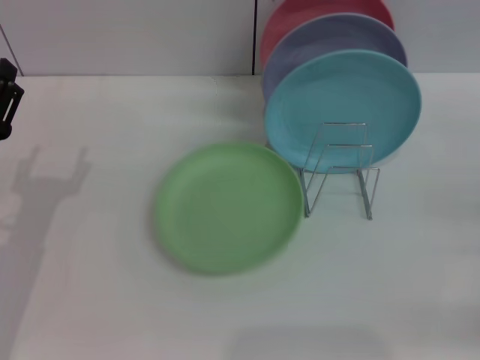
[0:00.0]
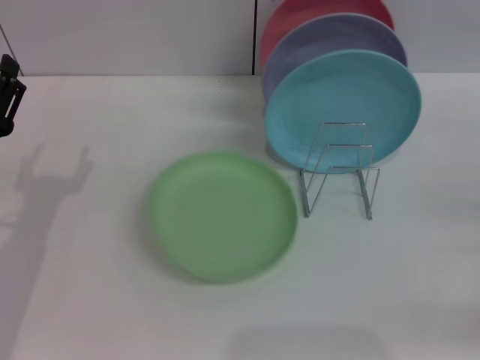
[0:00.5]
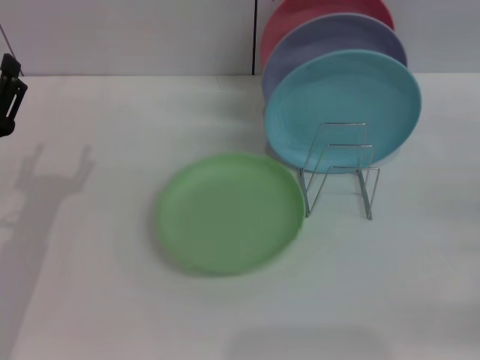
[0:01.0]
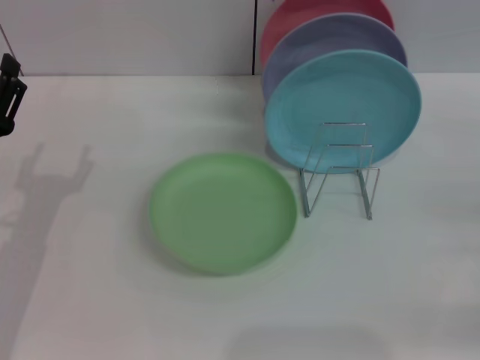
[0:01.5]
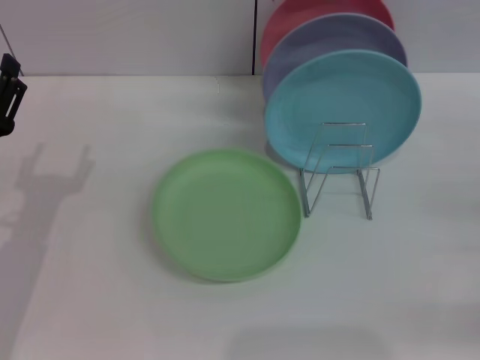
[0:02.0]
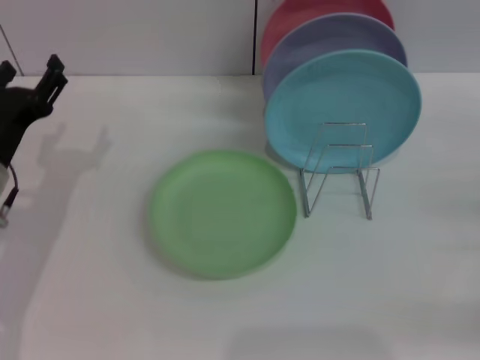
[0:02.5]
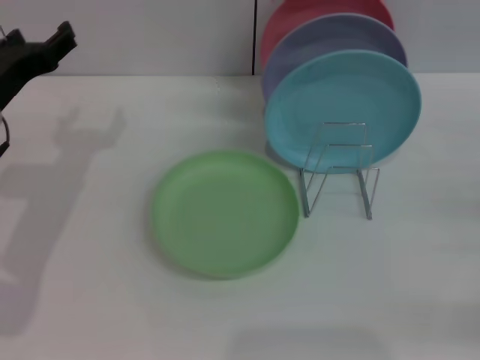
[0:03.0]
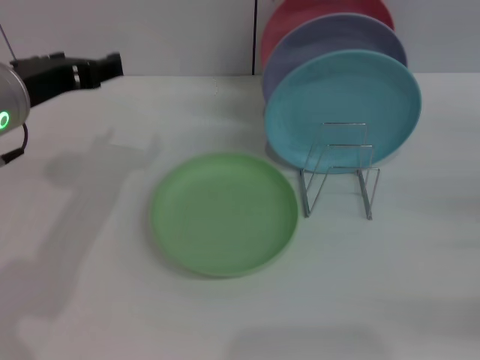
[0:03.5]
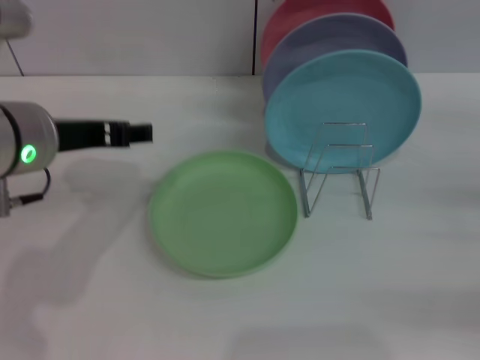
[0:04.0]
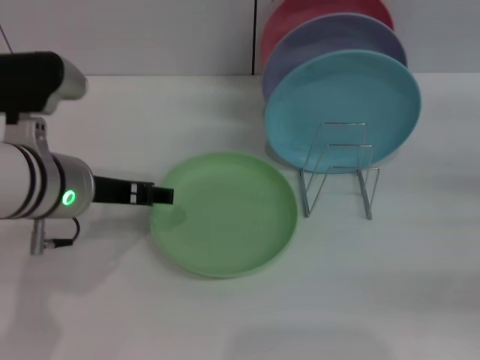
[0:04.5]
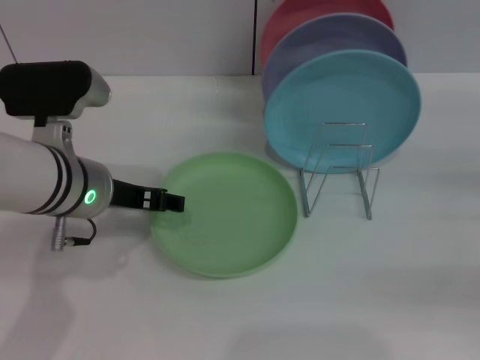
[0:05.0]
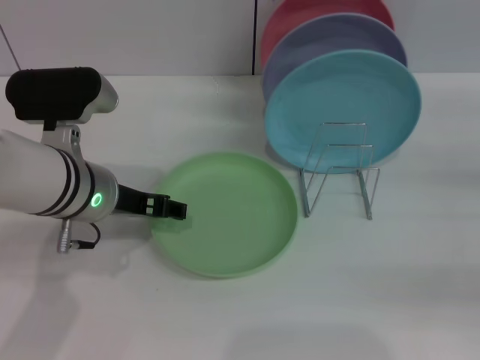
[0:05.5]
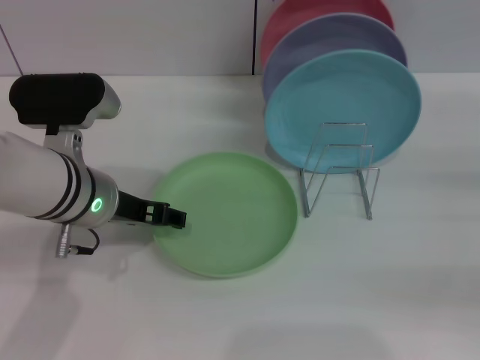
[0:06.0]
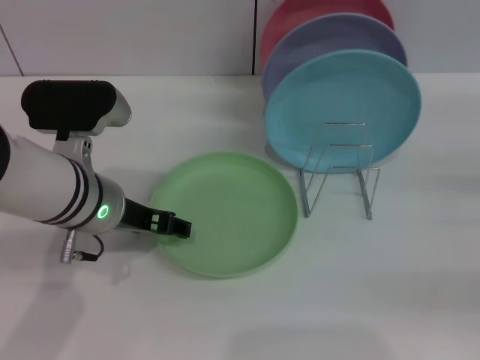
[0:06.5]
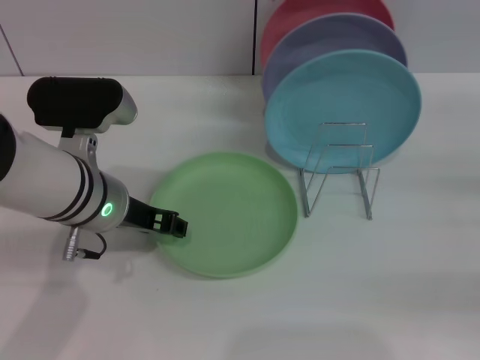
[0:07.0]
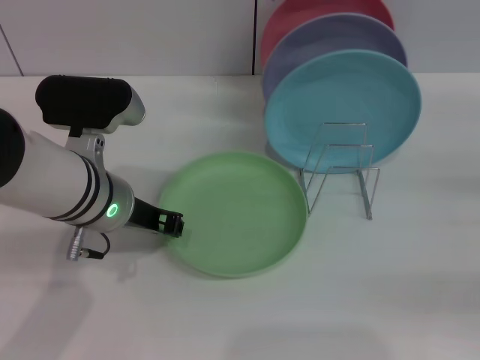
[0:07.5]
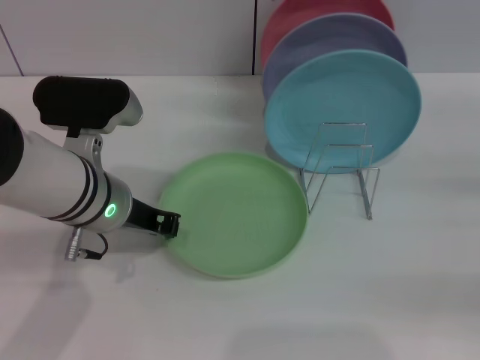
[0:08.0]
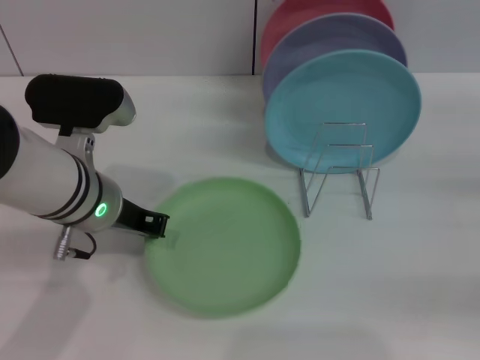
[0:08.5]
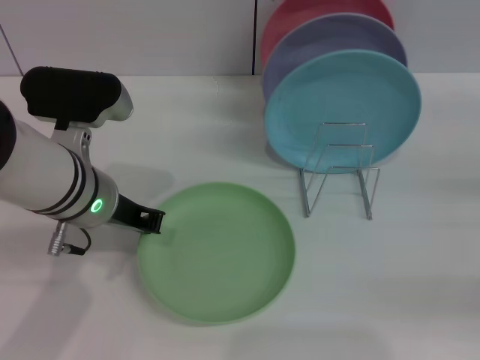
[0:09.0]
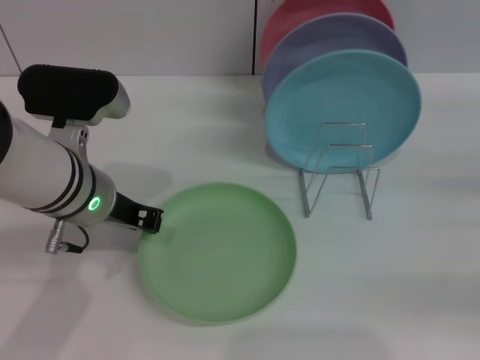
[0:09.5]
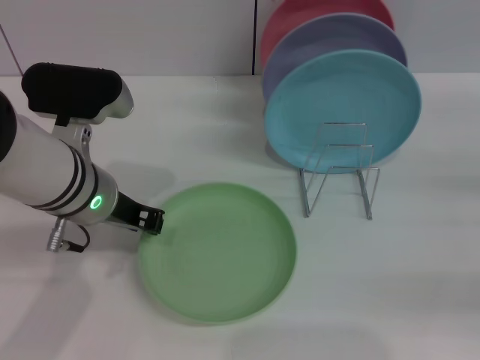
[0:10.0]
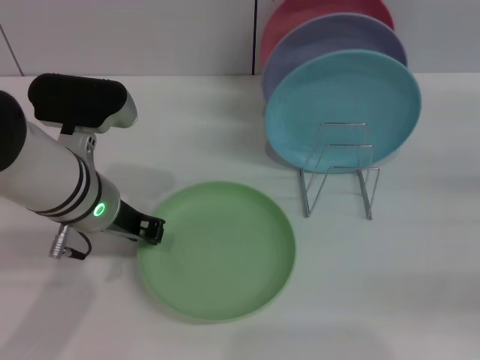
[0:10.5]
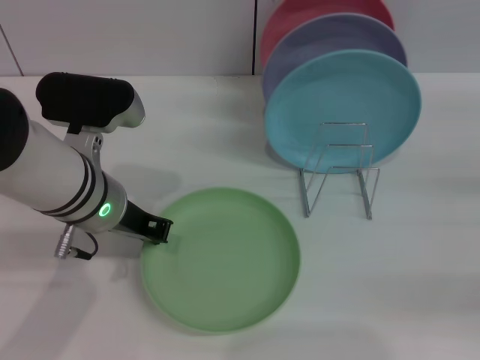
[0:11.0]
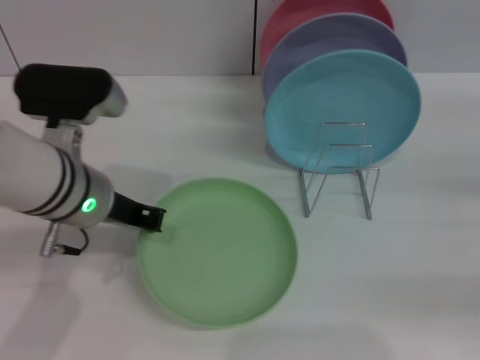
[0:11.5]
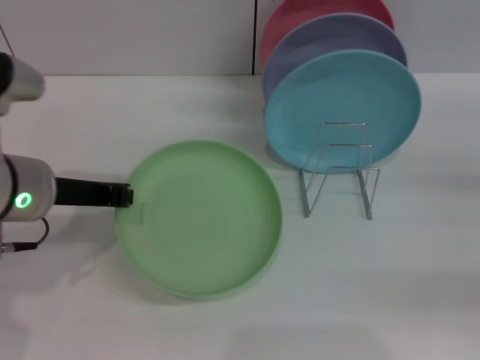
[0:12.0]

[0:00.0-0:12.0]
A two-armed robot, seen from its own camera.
Task of the whole recording: Grip the plate with one hand, pass it to the other, then set it on the shelf.
Step, 0.0 to 11.0 s: Pick up the plate with the left gripper.
0.0 to 2.0 s: Both grippers stay about where they are.
2.0 to 4.0 s: The left gripper travels upward and to the right by approximately 15 cm.
4.0 to 6.0 s: The left gripper travels downward by about 5 cm.
6.0 to 8.0 s: The left gripper closes up.
8.0 to 10.0 s: There are only small adjustments of the grippers.
10.0 to 12.0 s: The left gripper heads to the left, covering approximately 5 cm.

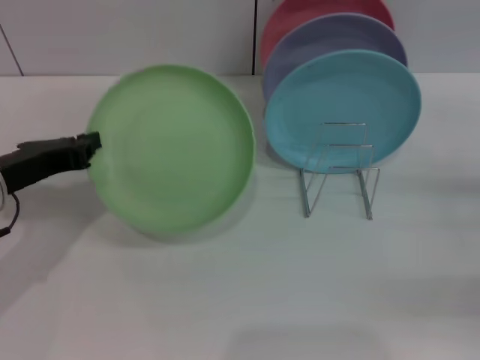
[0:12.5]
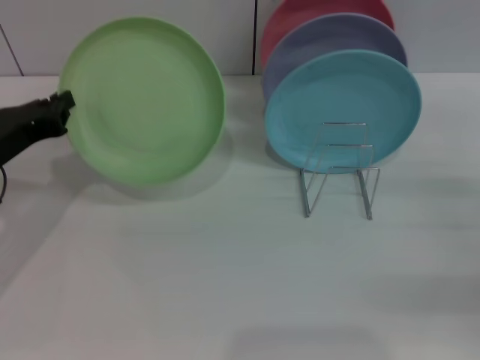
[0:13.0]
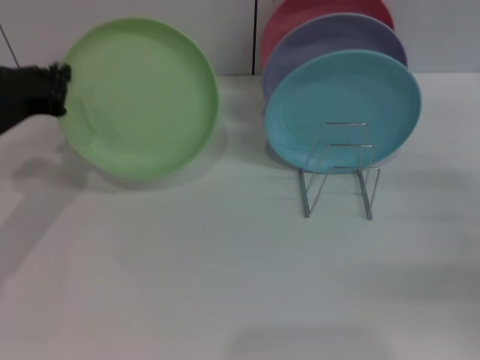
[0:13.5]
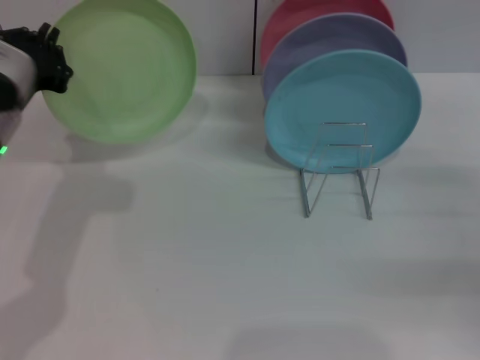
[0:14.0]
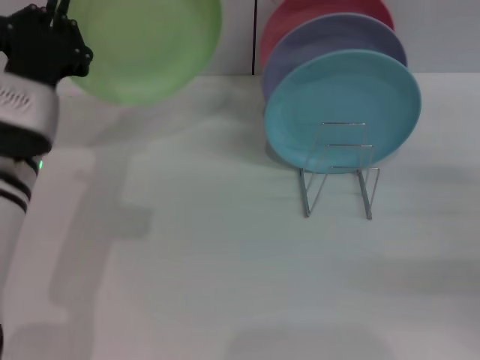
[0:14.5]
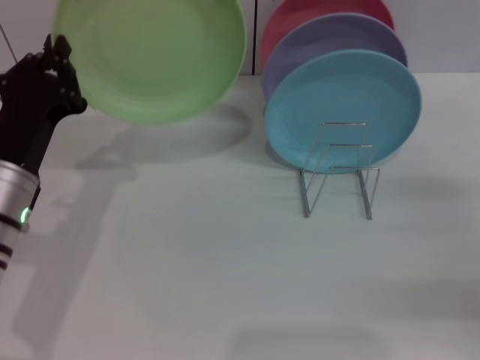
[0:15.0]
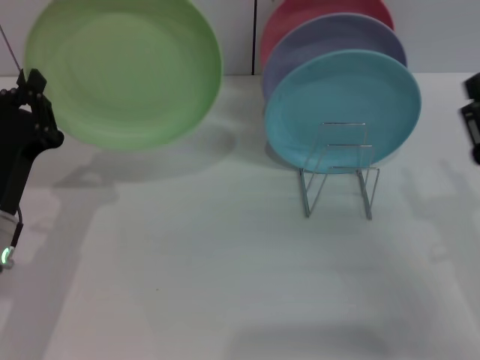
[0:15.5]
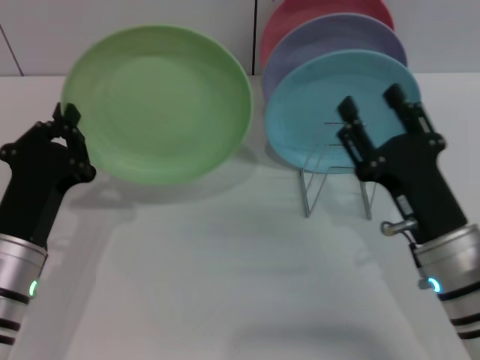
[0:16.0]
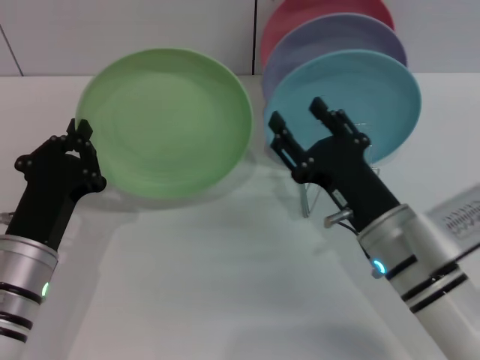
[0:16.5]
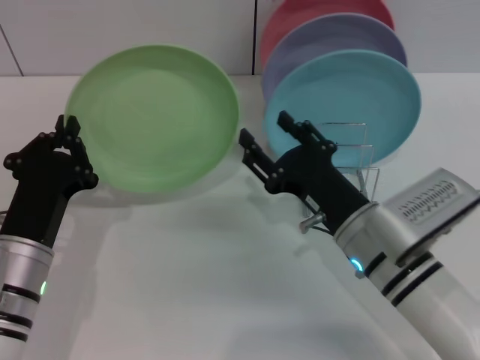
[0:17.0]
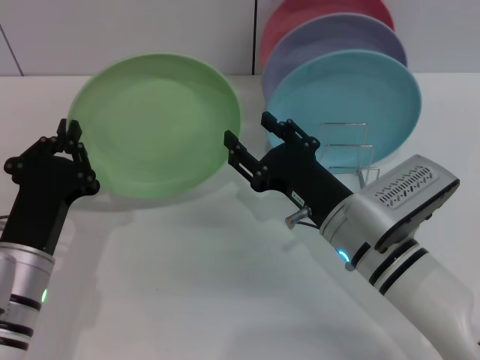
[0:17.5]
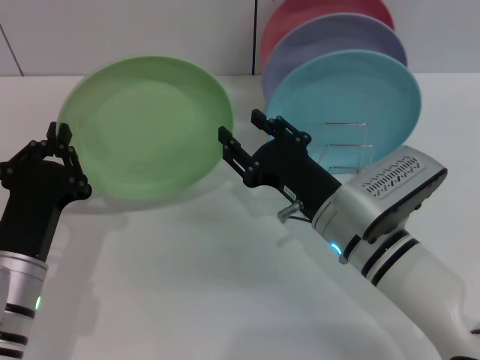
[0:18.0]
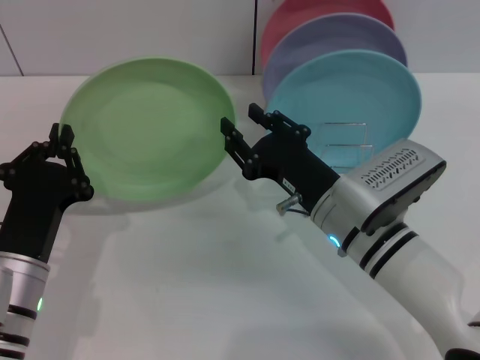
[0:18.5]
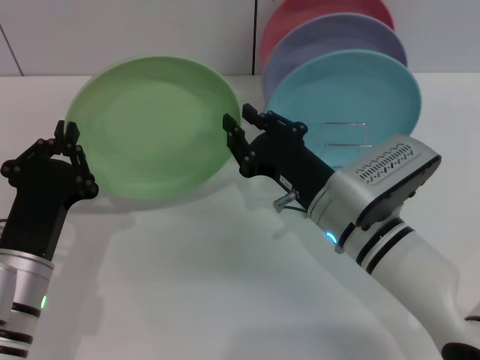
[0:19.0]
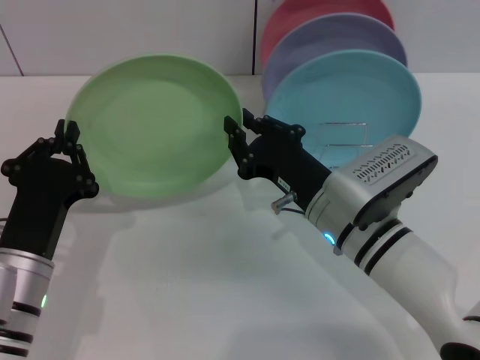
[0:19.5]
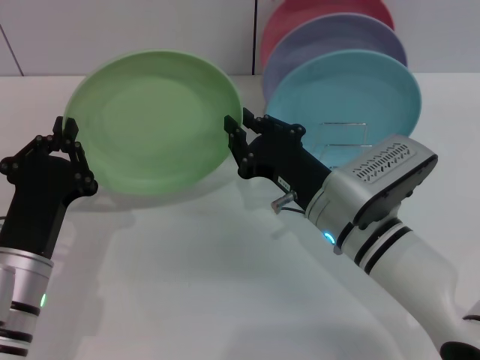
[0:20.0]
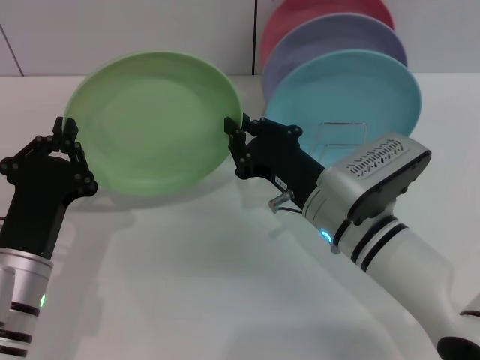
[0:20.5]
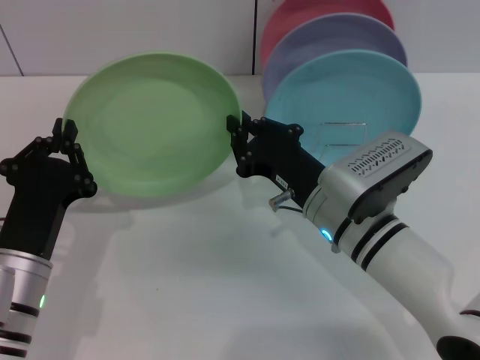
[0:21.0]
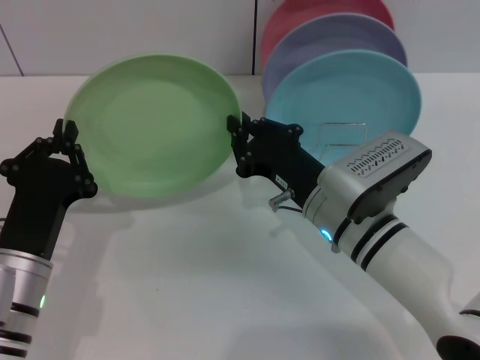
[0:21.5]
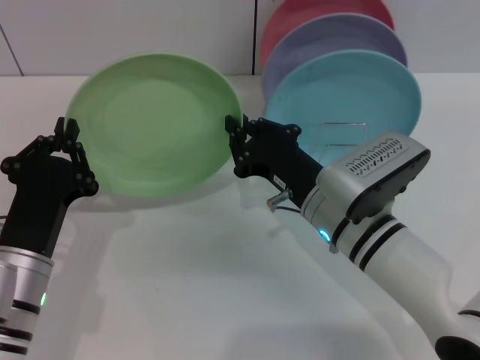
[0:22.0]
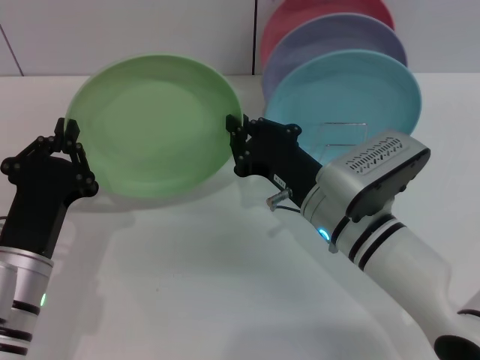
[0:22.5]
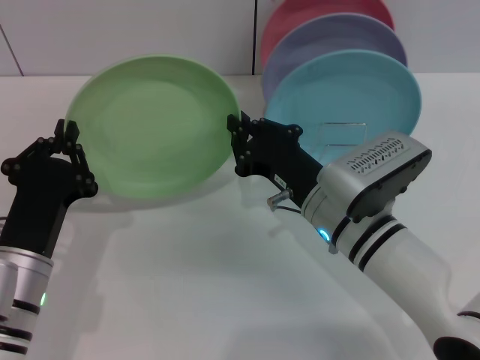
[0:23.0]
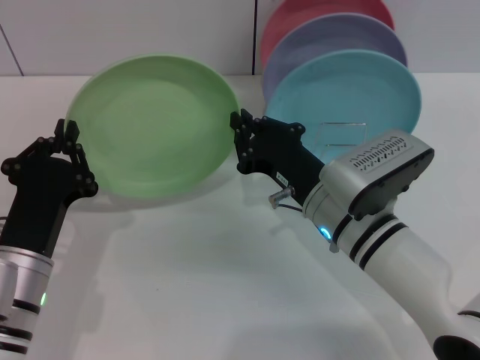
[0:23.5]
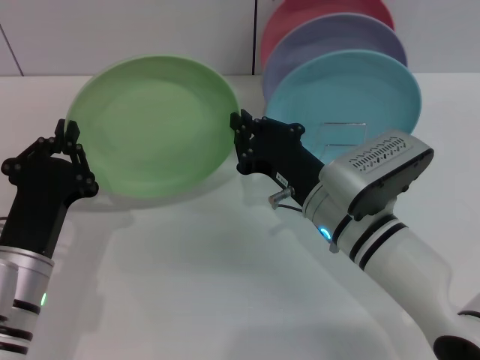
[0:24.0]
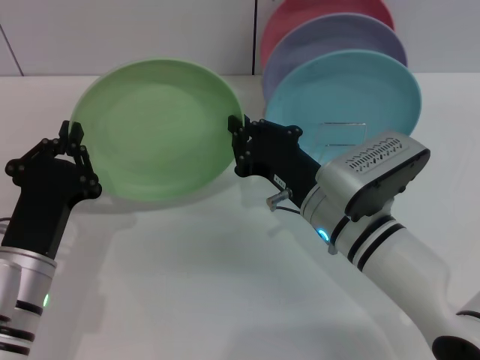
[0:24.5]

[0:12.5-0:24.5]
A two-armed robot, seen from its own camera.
Task of the whole recording: Grip the plate with one hand, pass it to the other, then set it on the shelf.
12.5 to 14.5 s: The left gripper moves to the right, some 5 cm.
14.5 to 16.5 s: The right gripper travels to the left by about 25 cm. The left gripper moves downward and backward, about 10 cm.
16.5 to 18.5 s: The grippers make only small movements.
18.5 to 20.5 s: The right gripper closes up.
20.5 to 24.5 s: Both grippers stay put.

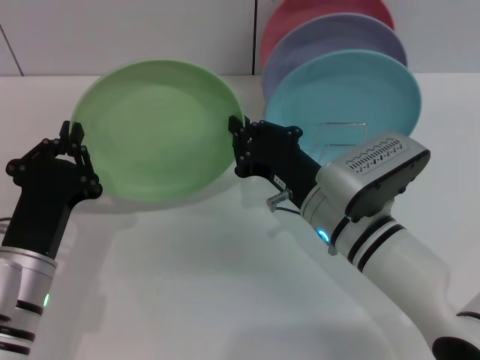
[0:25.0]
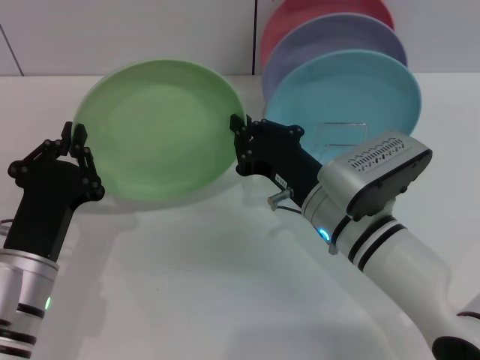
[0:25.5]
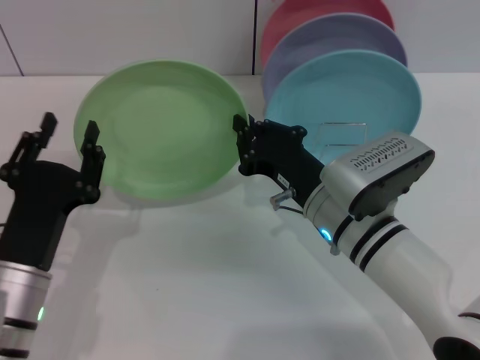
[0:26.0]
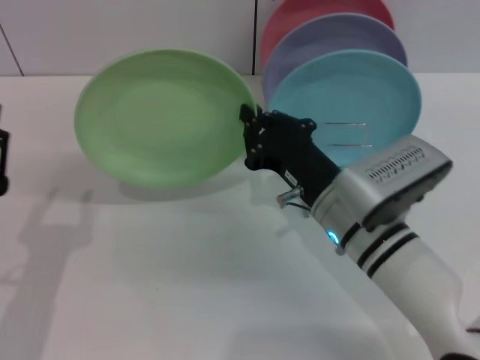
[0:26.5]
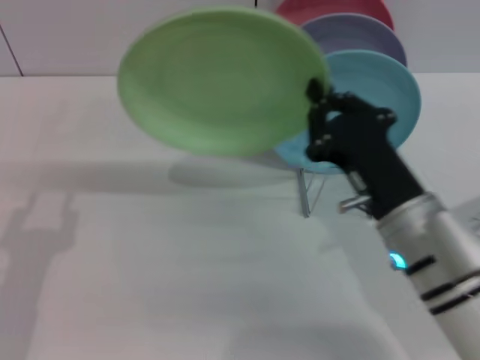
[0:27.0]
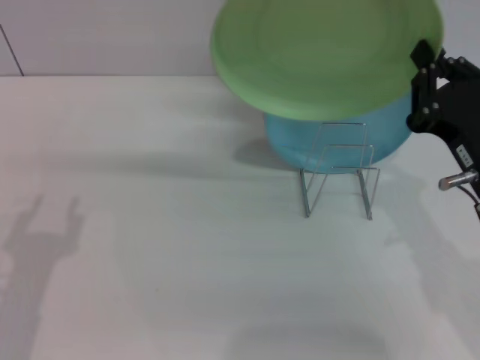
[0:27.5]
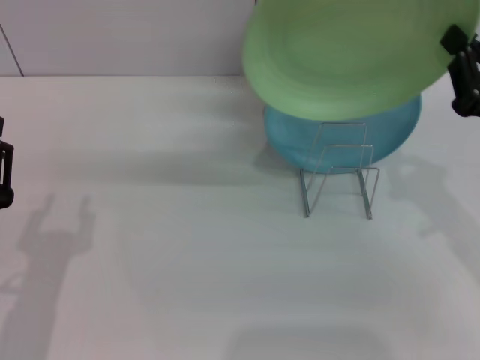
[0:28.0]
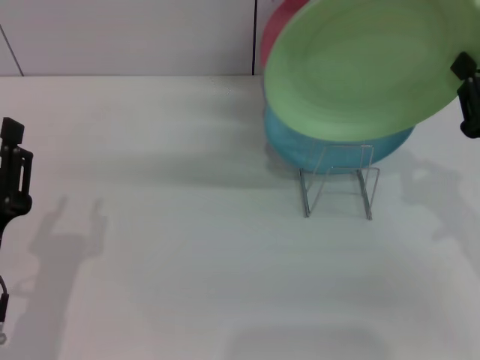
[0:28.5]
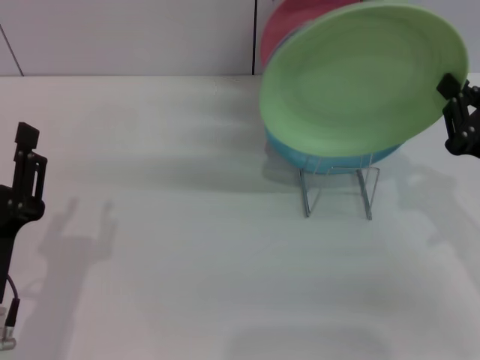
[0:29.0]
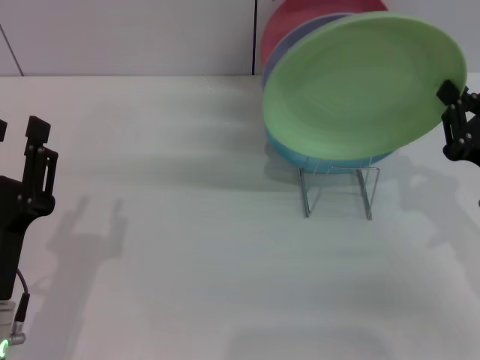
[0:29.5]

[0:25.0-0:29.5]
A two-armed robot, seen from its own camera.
Task of the whole recording: Grip the plate with one hand, pass it to the other, then set it on the shelf.
25.0 to 27.0 s: The left gripper shifts some 5 cm to the left, and opens its fingers, while the right gripper is displaced backward by approximately 5 cm.
27.0 to 29.5 s: The right gripper heads to the right, covering approximately 15 cm.
